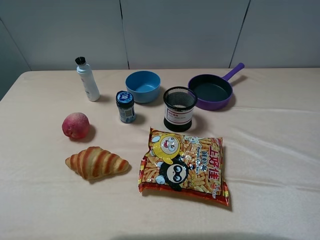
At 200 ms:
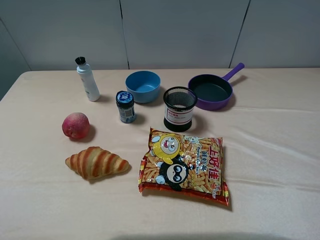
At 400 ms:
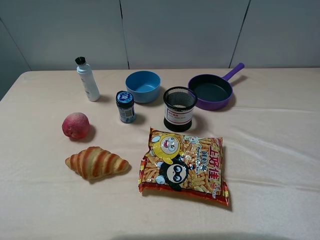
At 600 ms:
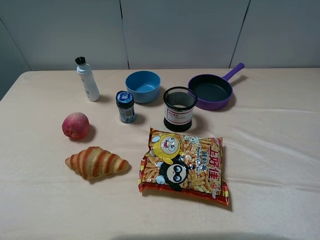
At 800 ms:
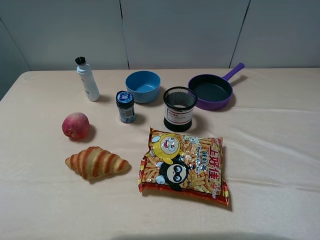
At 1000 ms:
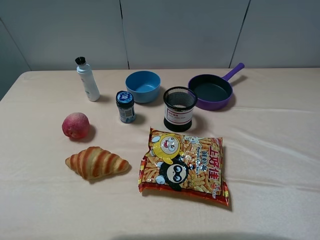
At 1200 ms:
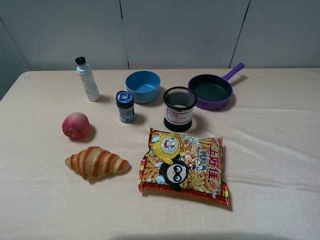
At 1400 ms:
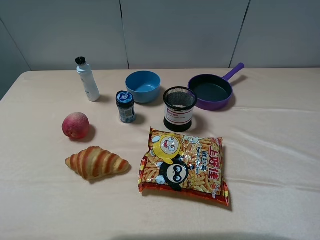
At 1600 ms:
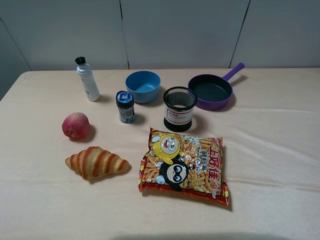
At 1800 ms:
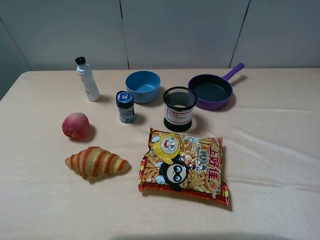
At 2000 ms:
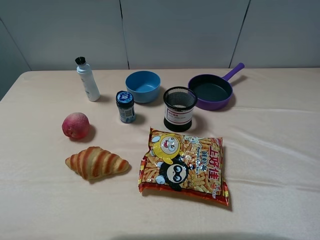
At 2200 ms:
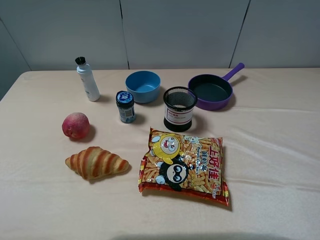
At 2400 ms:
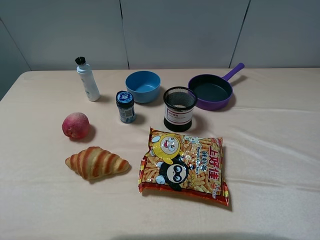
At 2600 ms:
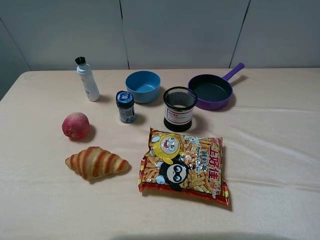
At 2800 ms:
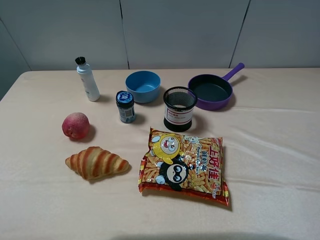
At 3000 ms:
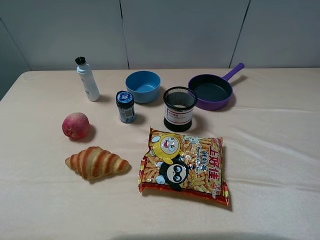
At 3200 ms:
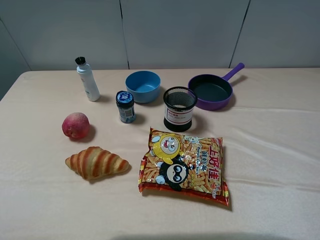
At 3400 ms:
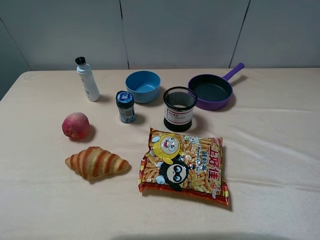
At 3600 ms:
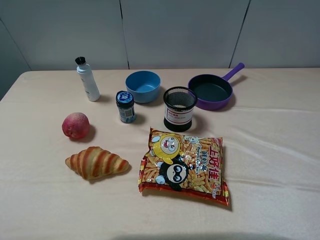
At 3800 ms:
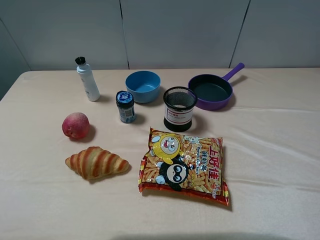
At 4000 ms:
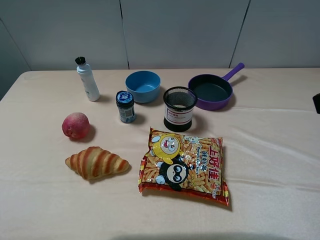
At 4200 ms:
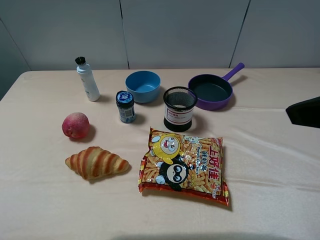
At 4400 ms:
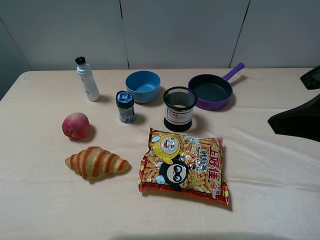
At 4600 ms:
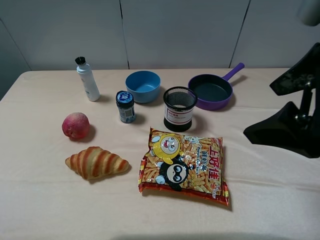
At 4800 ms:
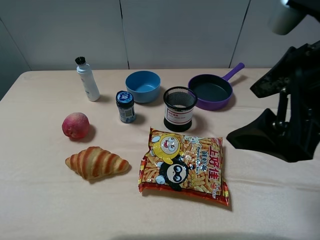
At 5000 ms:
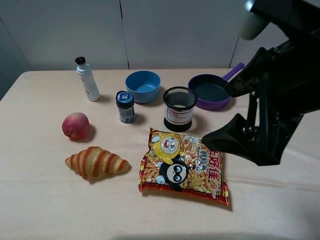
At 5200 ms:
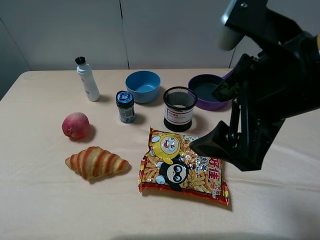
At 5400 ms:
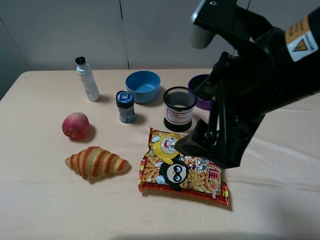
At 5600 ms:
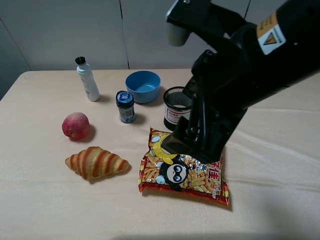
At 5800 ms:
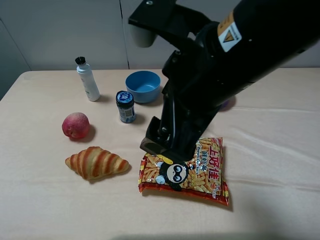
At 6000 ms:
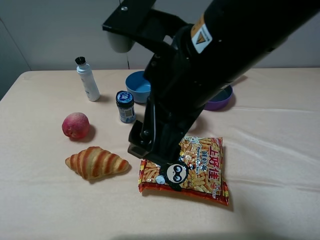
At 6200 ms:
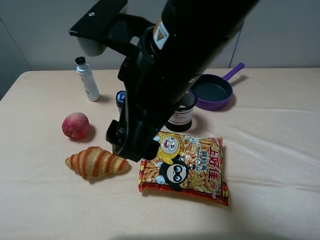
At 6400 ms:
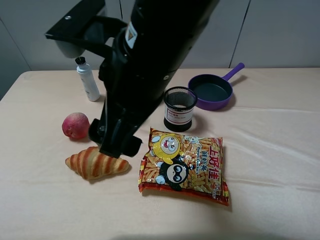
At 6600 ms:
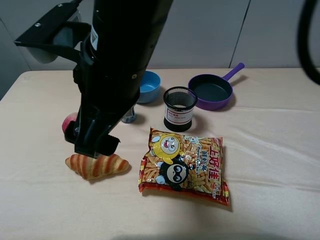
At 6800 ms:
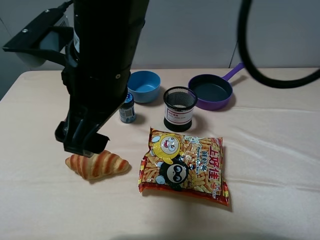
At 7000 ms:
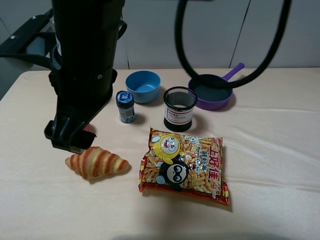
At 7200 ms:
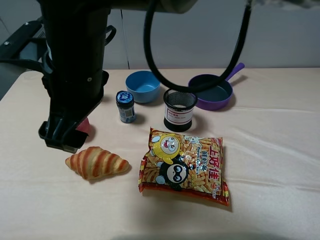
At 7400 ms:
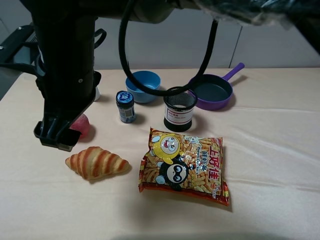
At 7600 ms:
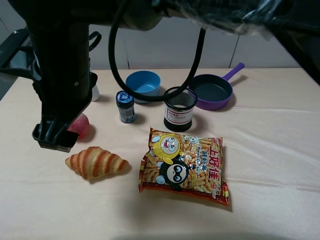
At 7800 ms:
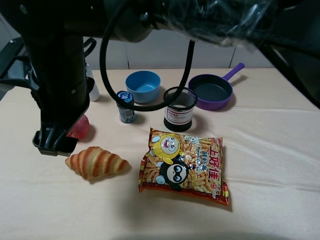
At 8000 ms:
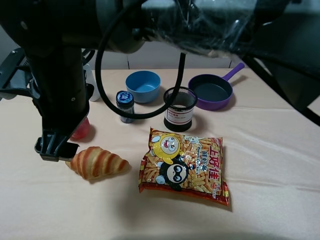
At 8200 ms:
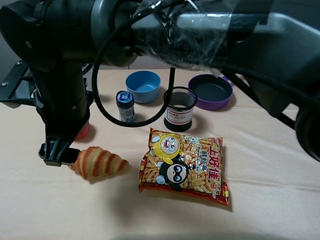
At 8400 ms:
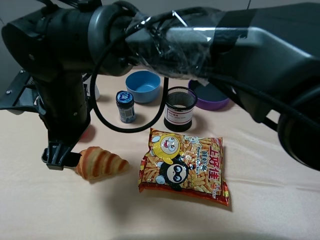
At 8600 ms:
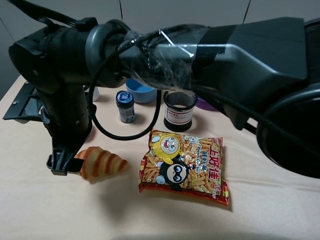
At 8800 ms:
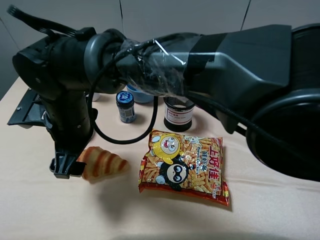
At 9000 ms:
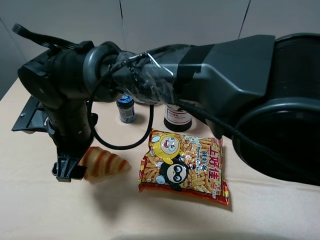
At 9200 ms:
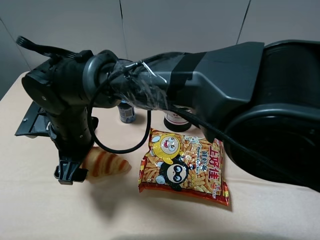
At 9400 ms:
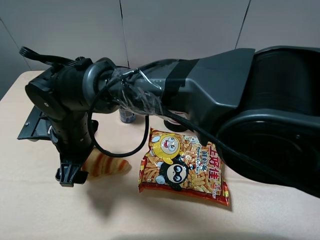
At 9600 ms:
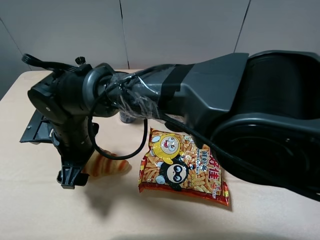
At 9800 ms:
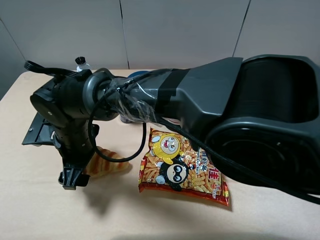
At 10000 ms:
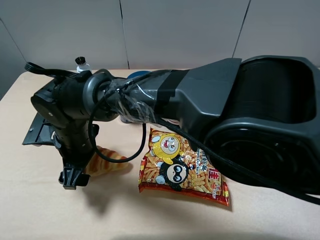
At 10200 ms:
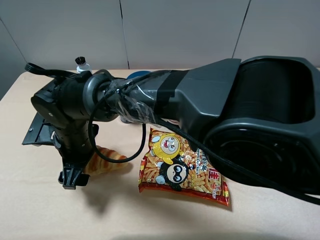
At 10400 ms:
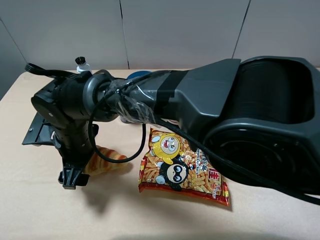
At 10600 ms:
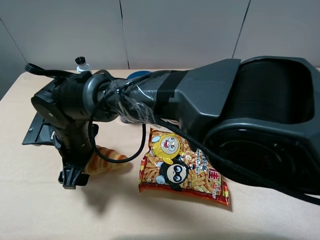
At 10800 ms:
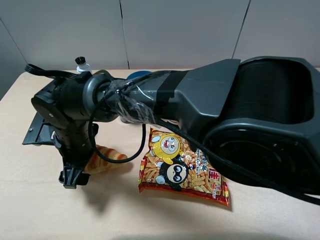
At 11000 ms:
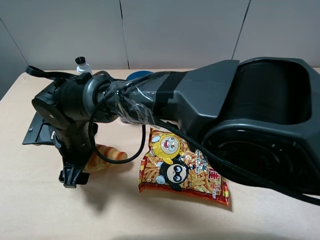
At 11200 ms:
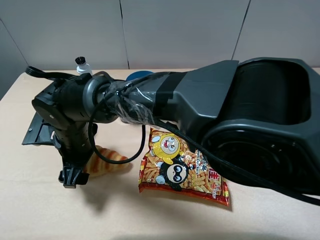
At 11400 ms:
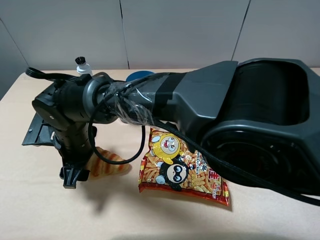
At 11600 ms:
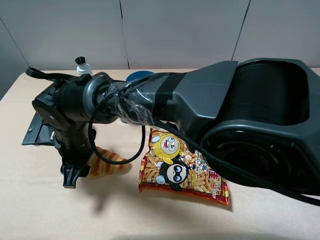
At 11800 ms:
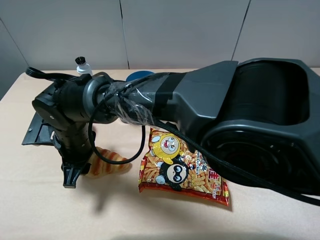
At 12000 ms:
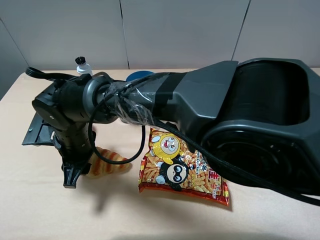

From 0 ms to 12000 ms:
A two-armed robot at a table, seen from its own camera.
Task of the whole recording: pick up an item with a gripper and place it in a random container on the table.
Step, from 0 ms to 11800 ms: Grasp the croissant with the right gripper.
From 0 ms to 1600 ms: Both grippers stay put.
From 3000 ms to 4400 ms: The right gripper is displaced forward and to the left by some 15 cm.
From 4400 ms to 6000 ms: The right gripper moves to the left, approximately 20 cm.
From 6000 ms to 7600 ms: The right gripper heads to the left, covering some 15 cm.
From 7600 ms to 9000 ms: The right gripper moves downward, roughly 10 cm.
From 10400 ms to 12000 ms: The right gripper closes its fingers.

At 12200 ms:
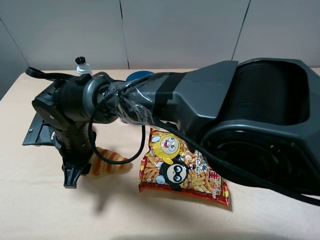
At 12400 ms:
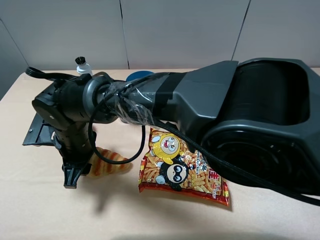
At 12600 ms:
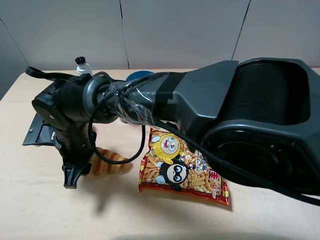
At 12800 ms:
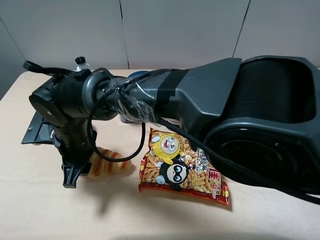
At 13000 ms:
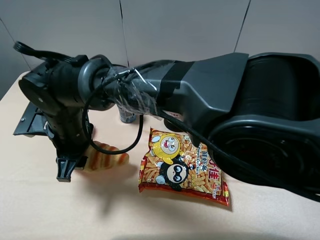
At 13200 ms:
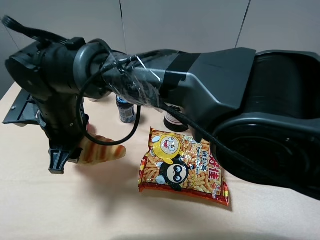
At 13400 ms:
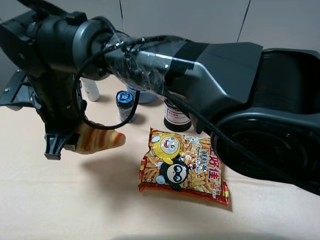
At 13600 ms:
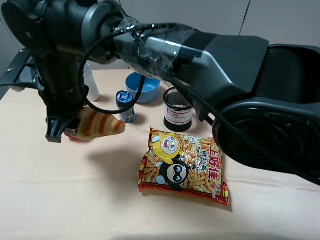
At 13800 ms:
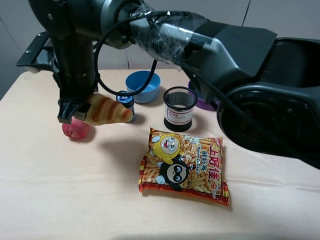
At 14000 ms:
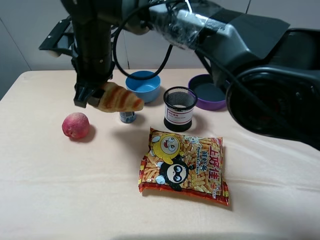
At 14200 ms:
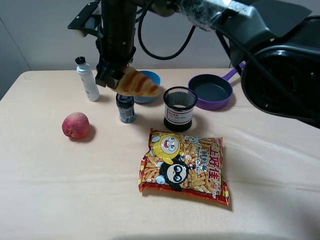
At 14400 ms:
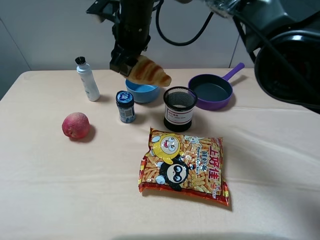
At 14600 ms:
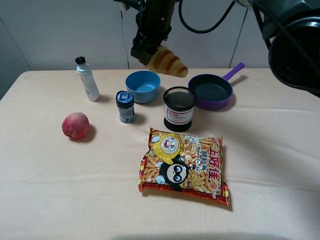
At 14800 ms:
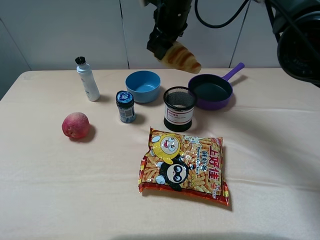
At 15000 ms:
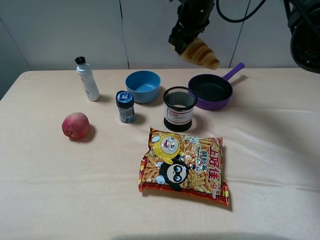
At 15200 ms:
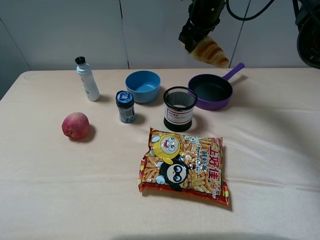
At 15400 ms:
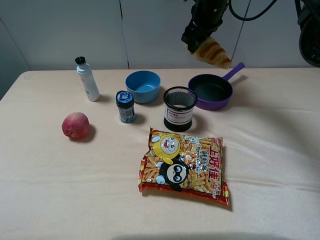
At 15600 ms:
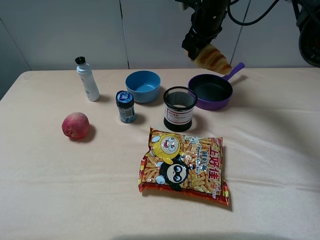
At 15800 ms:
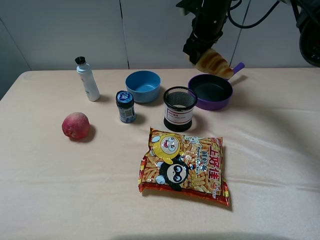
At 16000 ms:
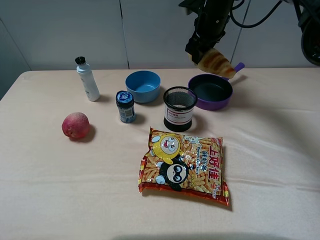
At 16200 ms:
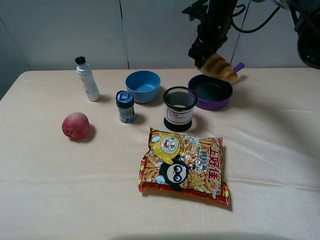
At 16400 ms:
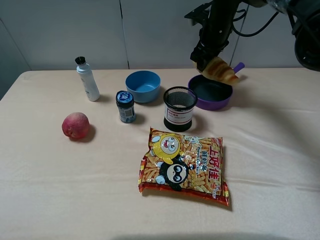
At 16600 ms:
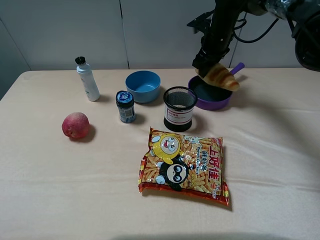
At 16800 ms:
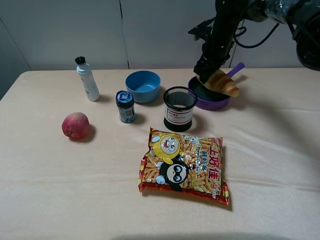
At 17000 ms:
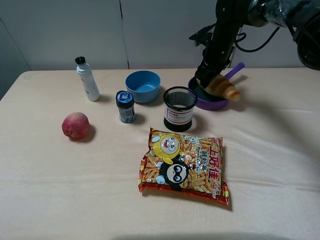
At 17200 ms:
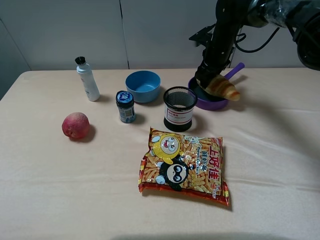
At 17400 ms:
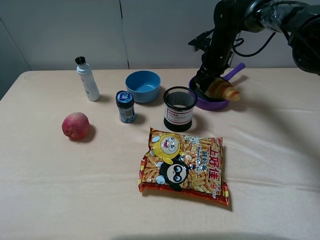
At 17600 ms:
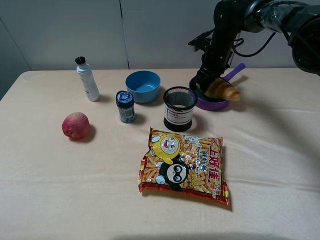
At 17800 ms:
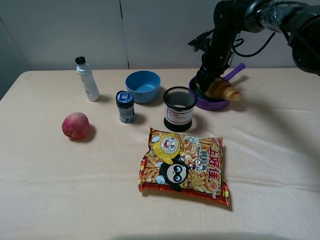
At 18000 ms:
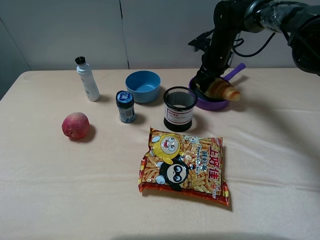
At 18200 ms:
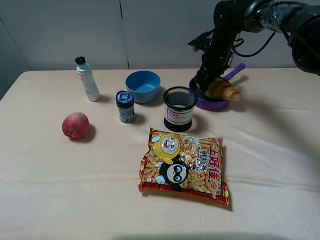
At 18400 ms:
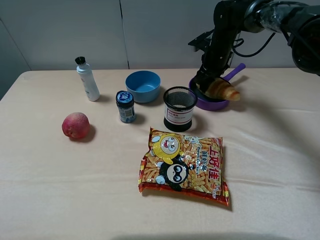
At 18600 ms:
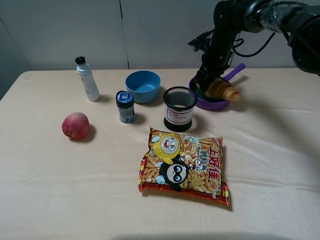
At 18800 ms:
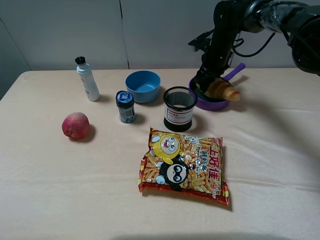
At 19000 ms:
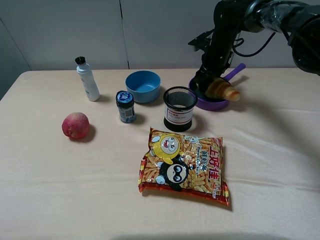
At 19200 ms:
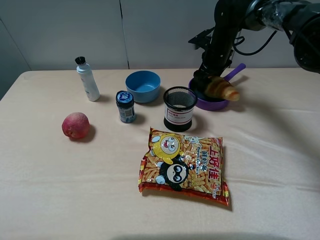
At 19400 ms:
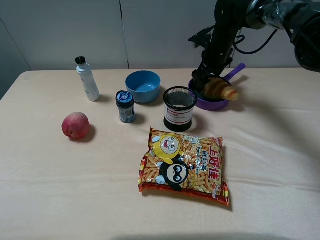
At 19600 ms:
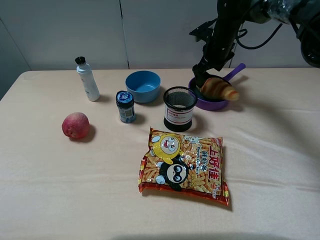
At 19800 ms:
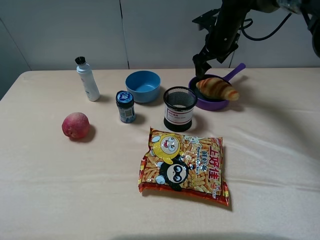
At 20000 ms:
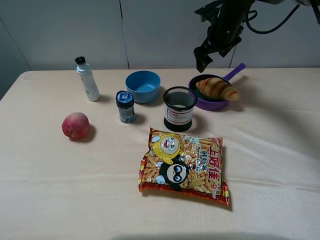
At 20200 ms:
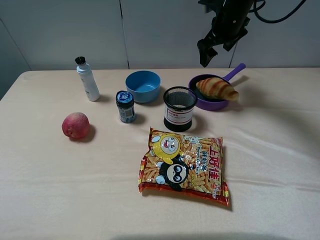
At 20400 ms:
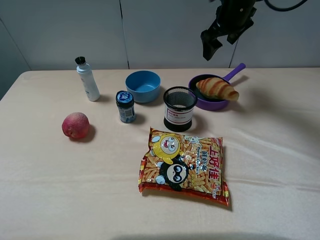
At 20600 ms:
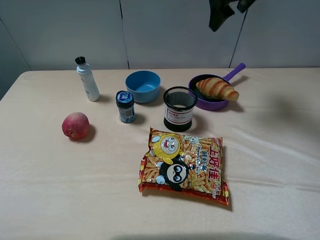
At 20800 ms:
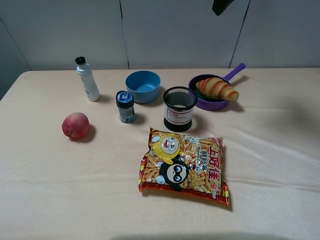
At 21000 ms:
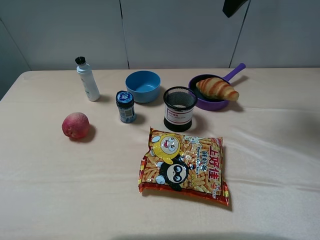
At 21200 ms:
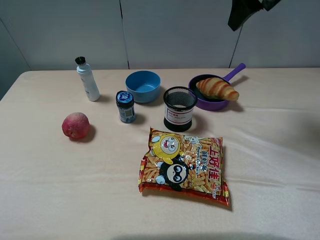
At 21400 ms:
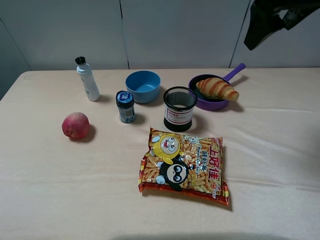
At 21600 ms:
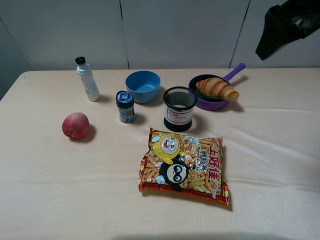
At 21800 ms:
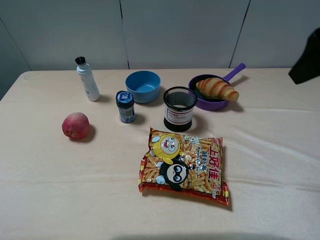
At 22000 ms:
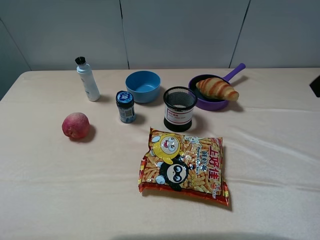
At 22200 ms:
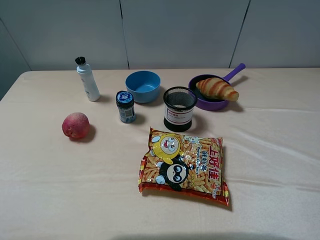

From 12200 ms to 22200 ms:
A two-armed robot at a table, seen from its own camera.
Task of the whole recording: pick up an item with a gripper and place it in a random container on the table.
Step, from 12200 ms to 19600 ms: Place the croissant into the purple pot with the right gripper.
From 12200 ms to 13600 ms: The right gripper is displaced upward by roughly 10 cm.
From 13600 ms to 15000 ms: The right gripper travels to the right and forward by approximately 35 cm.
From 15000 ms to 16400 ms: The right gripper is displaced downward and to the right by some 10 cm.
From 16400 ms to 18000 ms: The right gripper is displaced downward by about 5 cm.
From 18000 ms to 19400 ms: The right gripper opens its fingers.
From 19400 ms to 20800 ms: The right gripper travels upward by about 25 cm.
From 20800 ms to 22200 ms: The right gripper shifts roughly 30 cm backward.
